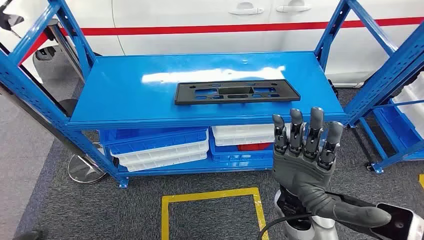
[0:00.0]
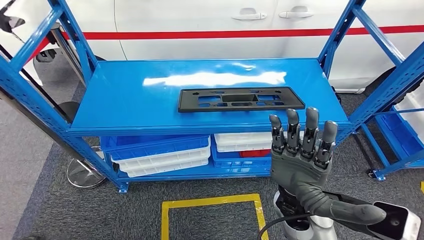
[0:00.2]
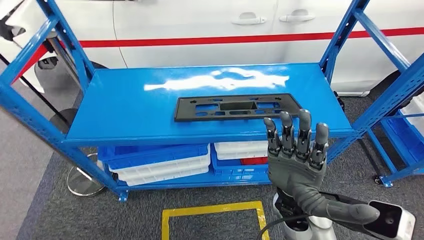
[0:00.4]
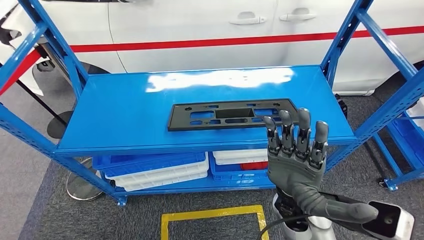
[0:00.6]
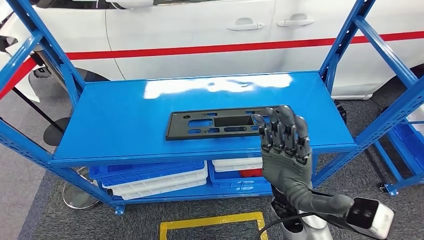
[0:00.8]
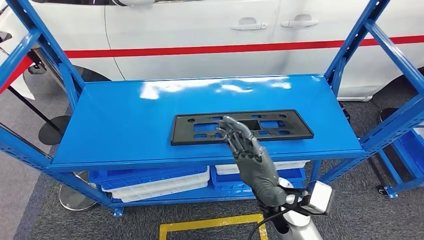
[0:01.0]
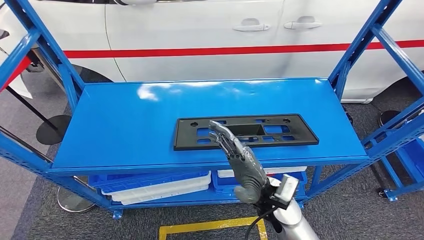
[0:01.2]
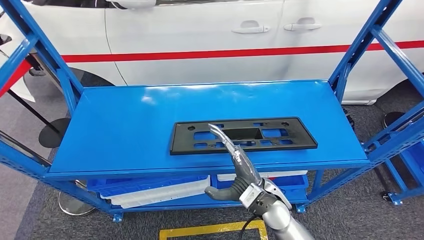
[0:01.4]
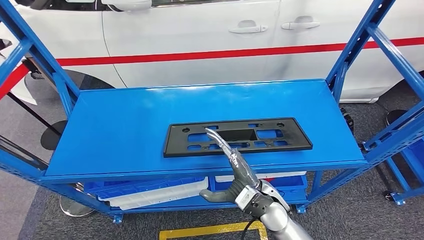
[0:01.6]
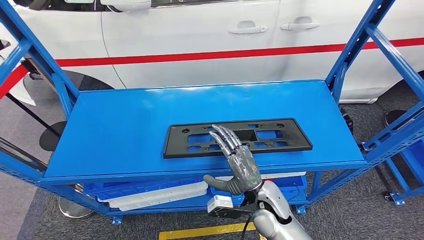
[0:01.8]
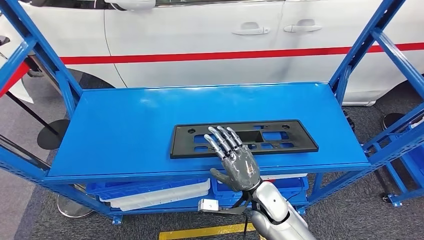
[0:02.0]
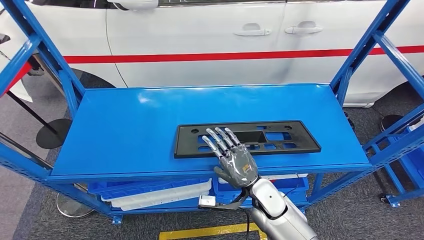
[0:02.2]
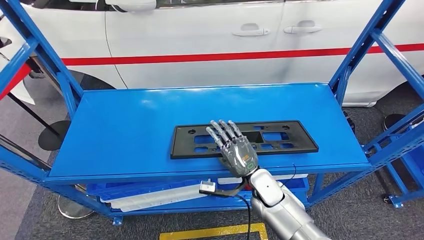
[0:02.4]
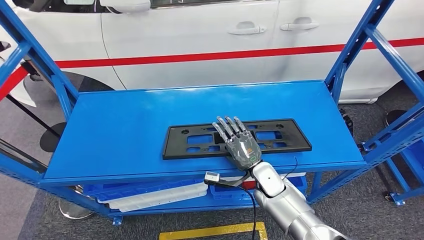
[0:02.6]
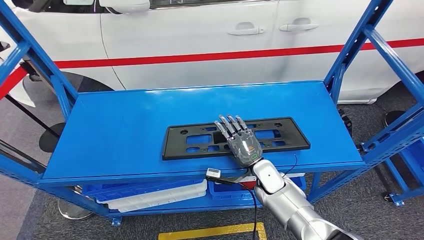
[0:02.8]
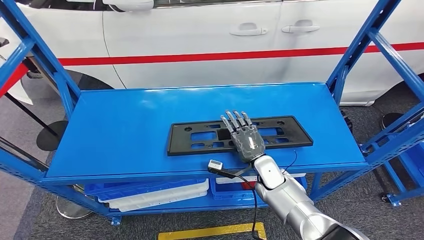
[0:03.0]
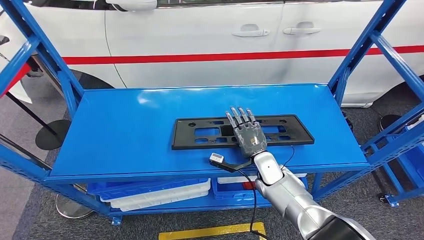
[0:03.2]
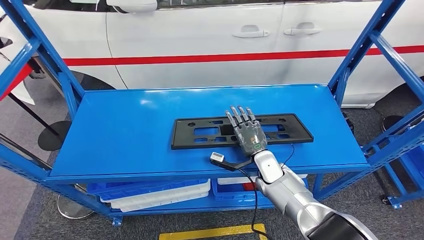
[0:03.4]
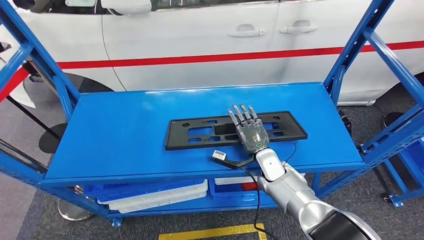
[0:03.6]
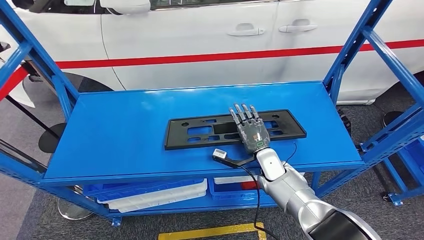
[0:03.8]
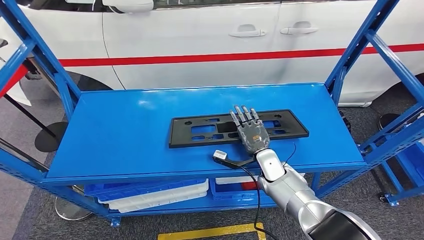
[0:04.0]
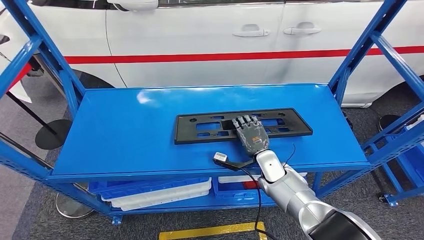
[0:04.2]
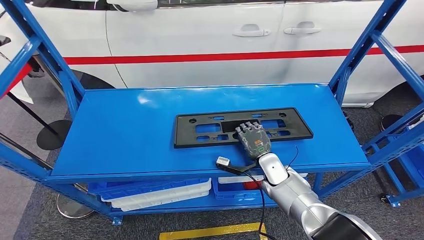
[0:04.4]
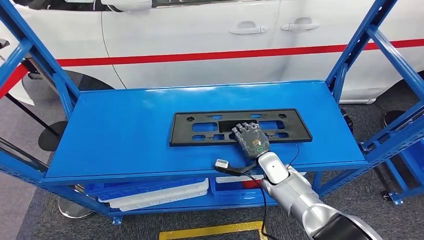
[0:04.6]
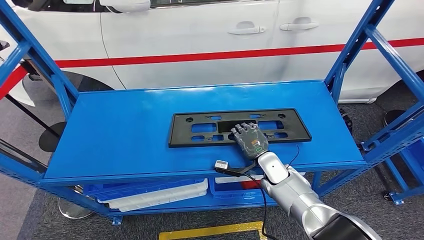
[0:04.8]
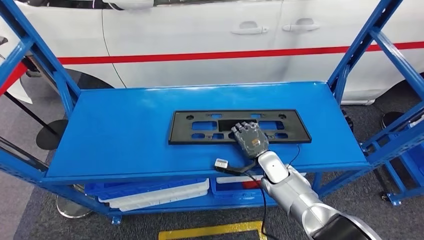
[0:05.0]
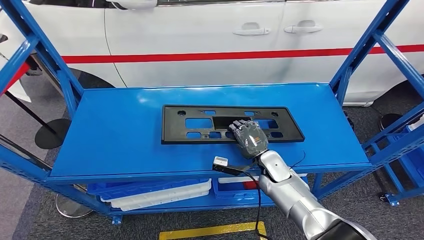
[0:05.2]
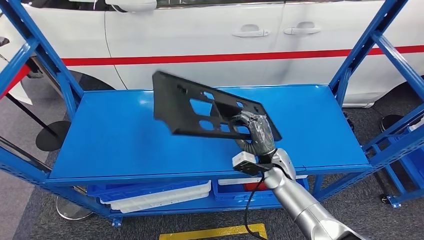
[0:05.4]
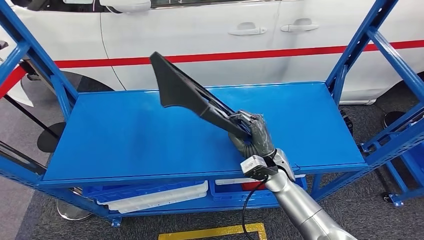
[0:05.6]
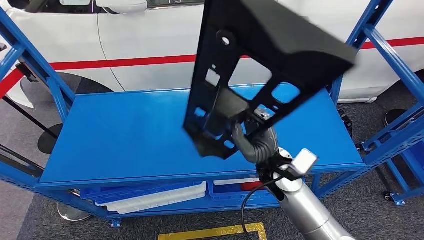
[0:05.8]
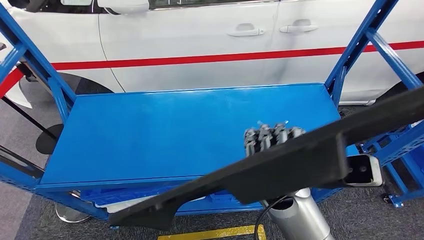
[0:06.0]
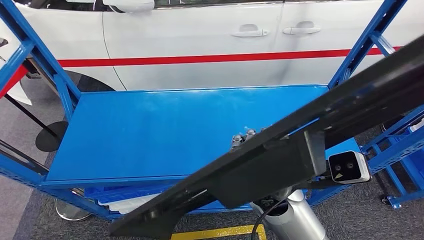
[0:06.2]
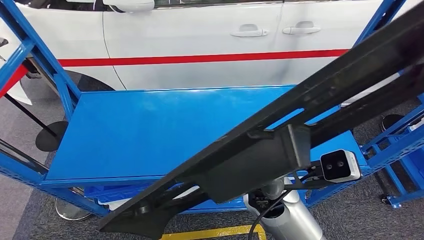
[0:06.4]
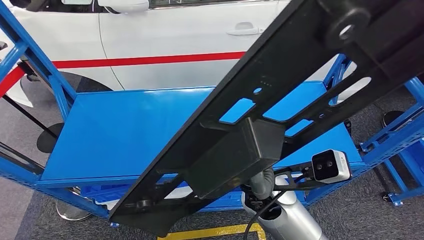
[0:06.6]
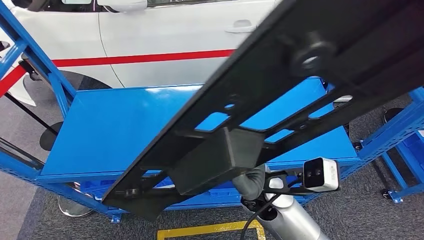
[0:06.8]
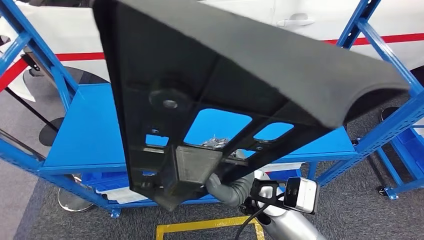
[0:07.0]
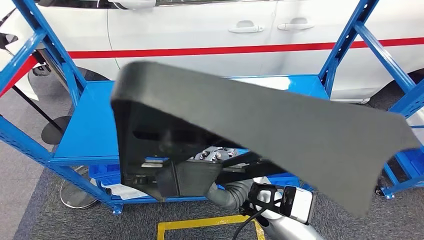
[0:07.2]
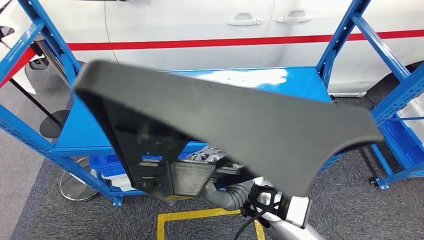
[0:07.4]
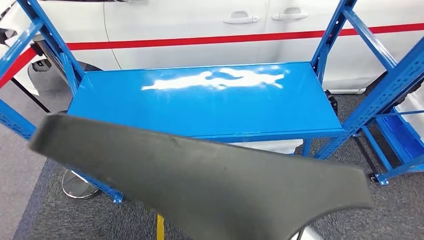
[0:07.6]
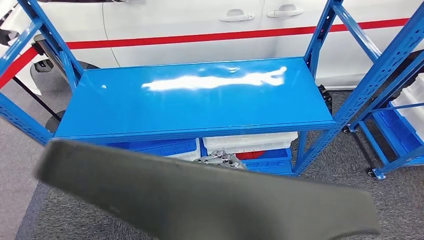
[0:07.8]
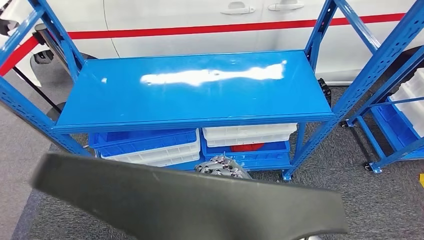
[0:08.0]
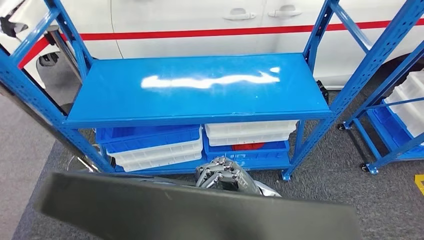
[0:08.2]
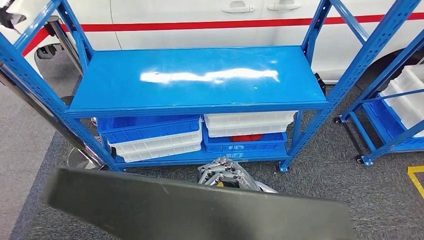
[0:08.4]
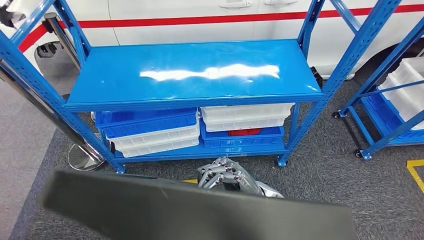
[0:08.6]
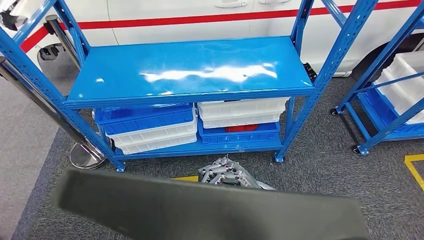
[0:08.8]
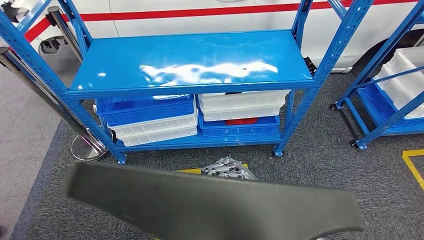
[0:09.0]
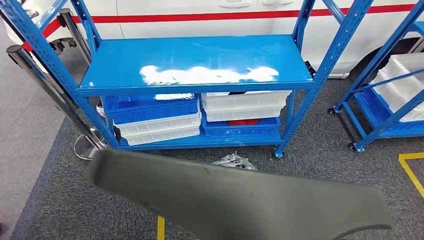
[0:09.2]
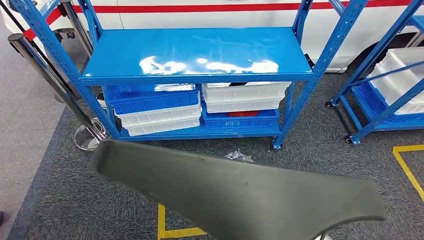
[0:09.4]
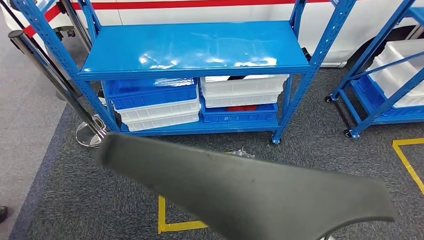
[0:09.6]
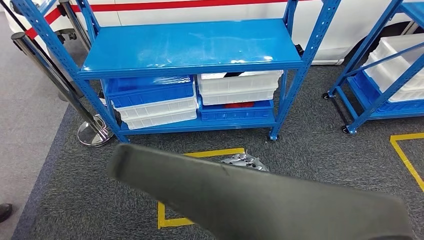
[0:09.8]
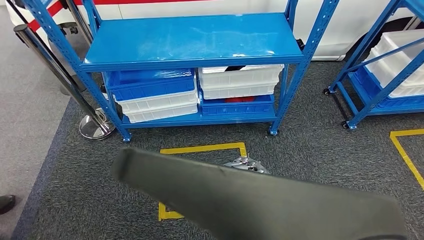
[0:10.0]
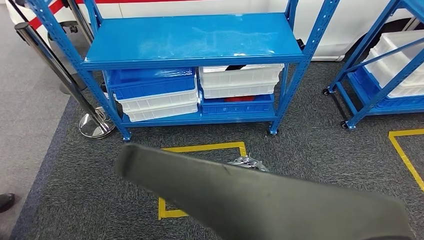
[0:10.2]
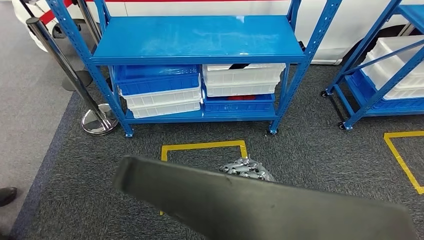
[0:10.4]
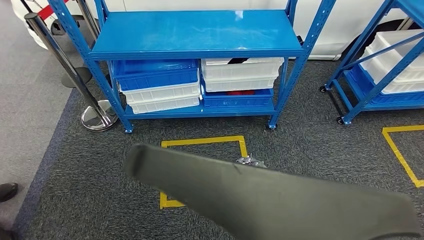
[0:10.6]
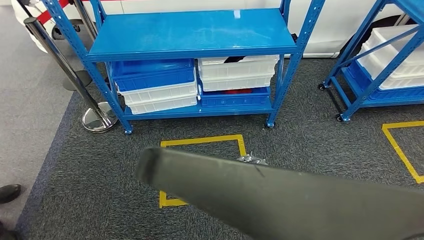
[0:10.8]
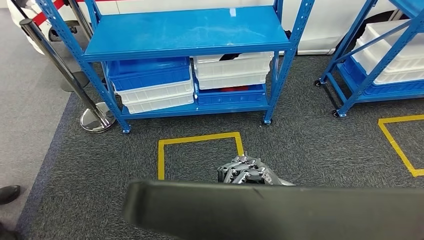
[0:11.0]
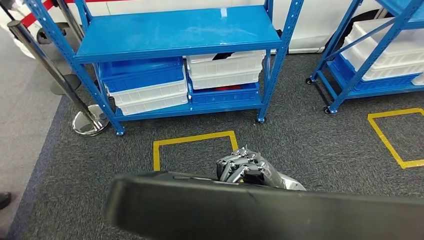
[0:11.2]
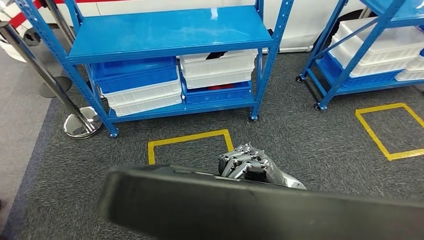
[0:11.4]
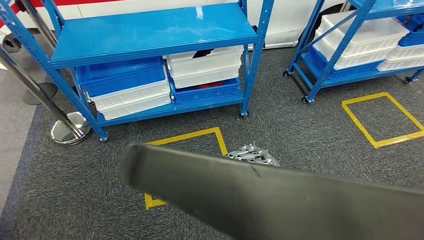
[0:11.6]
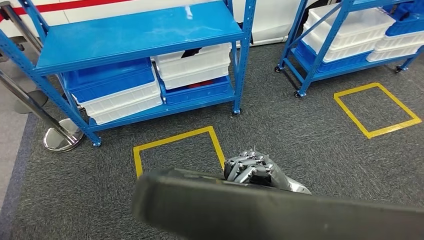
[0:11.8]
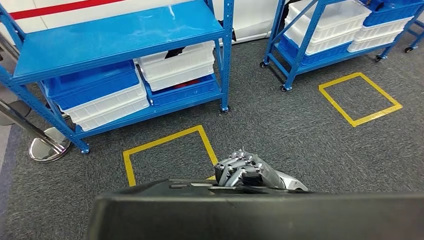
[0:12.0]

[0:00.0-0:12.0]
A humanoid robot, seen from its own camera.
Step, 0:00.0 to 0:05.2: Pick up the large material from the shelf.
0:03.0 to 0:04.4: There are only small adjustments of the hands.

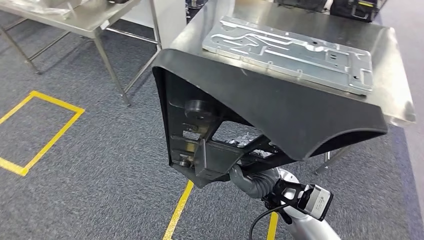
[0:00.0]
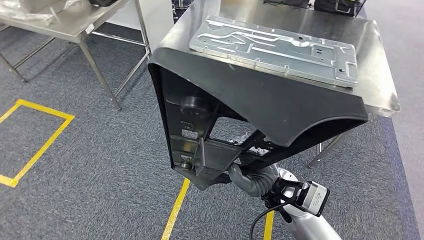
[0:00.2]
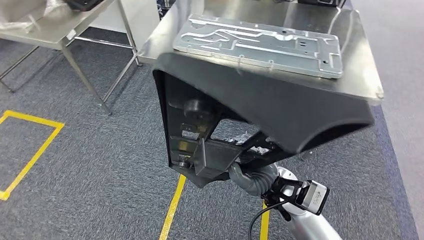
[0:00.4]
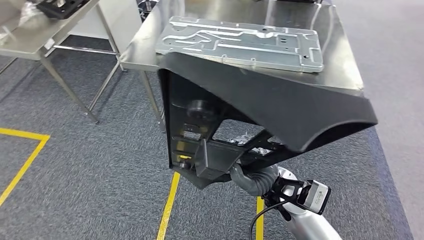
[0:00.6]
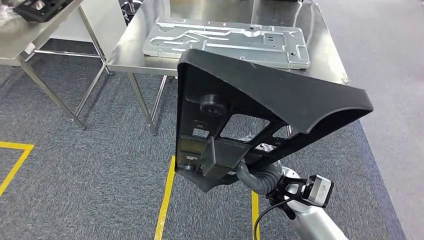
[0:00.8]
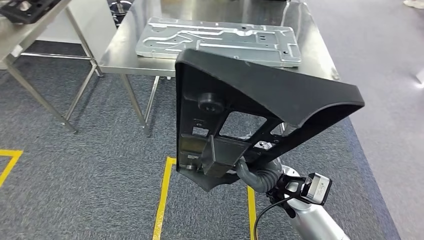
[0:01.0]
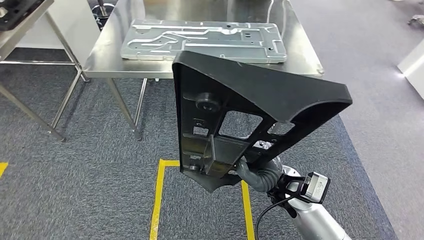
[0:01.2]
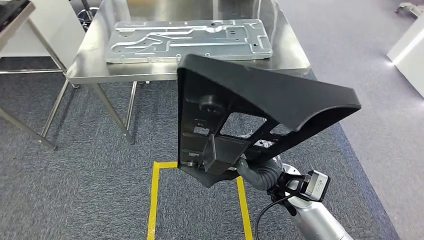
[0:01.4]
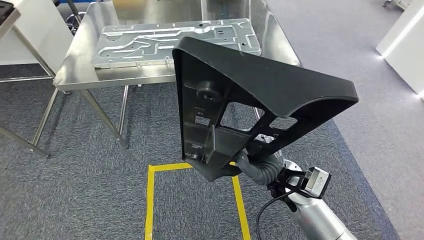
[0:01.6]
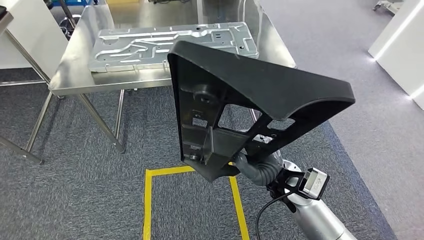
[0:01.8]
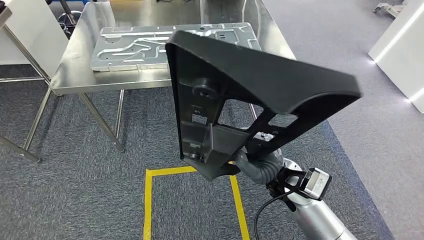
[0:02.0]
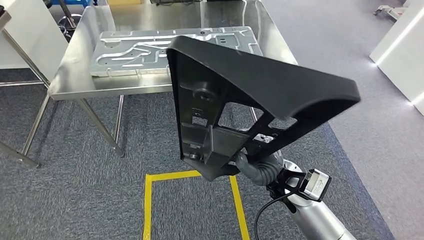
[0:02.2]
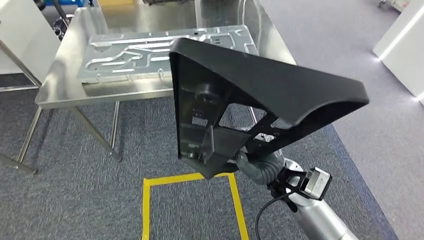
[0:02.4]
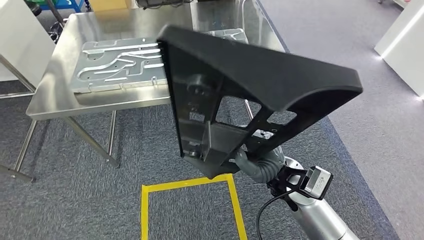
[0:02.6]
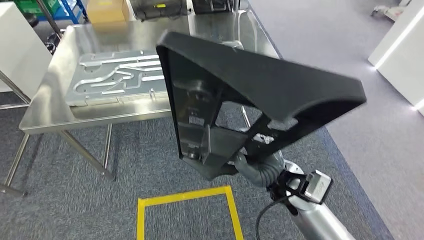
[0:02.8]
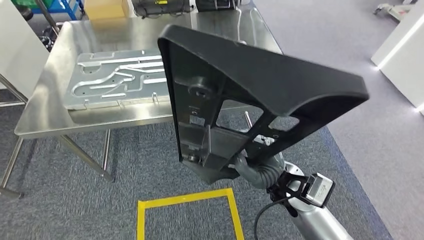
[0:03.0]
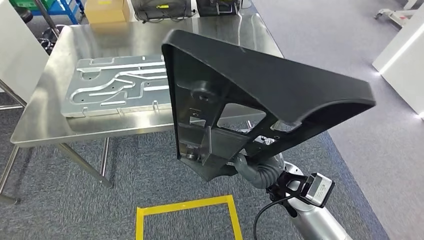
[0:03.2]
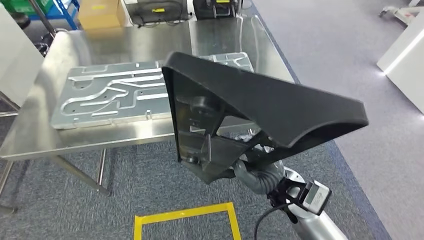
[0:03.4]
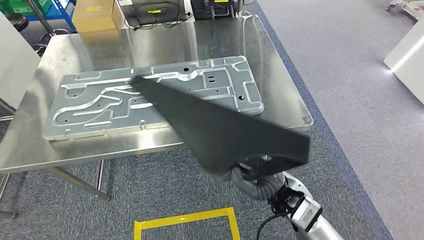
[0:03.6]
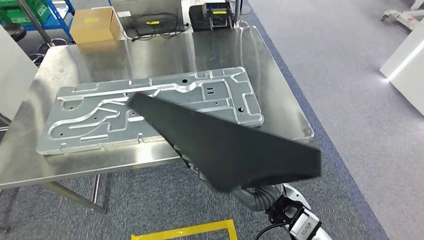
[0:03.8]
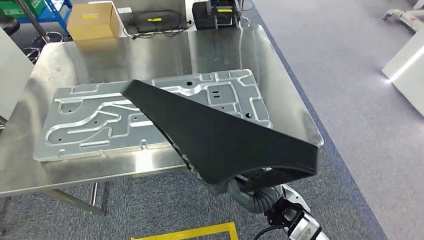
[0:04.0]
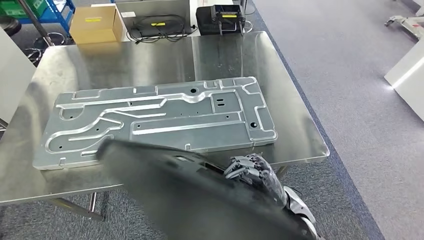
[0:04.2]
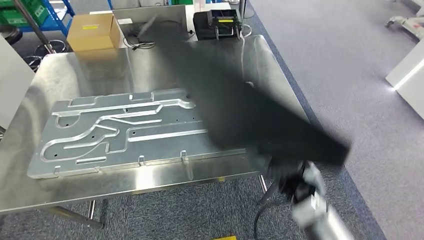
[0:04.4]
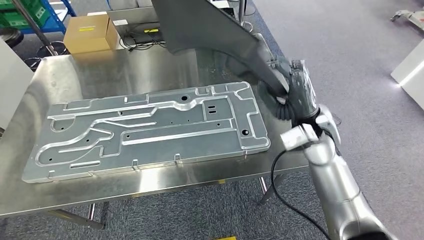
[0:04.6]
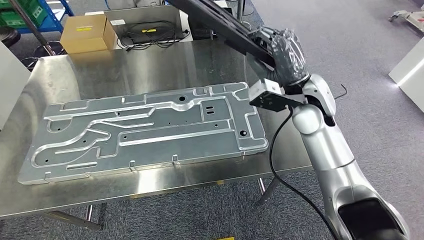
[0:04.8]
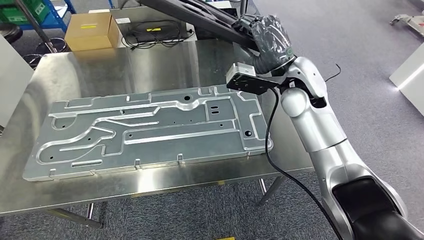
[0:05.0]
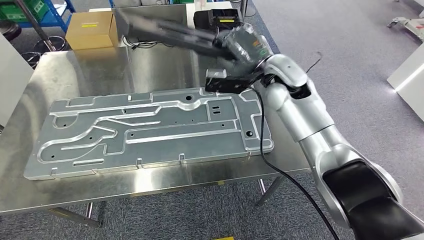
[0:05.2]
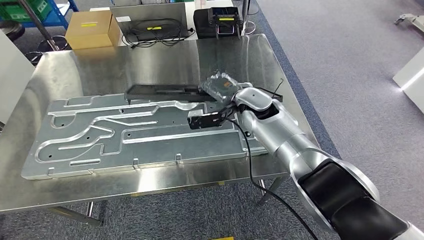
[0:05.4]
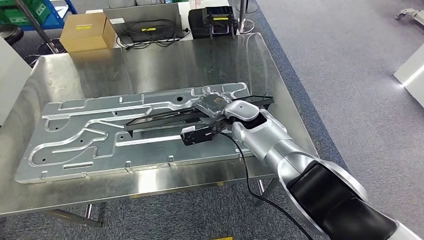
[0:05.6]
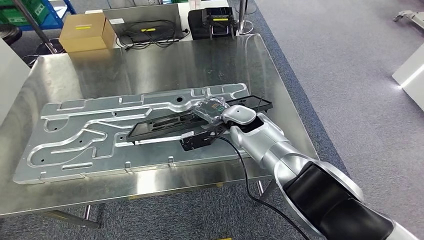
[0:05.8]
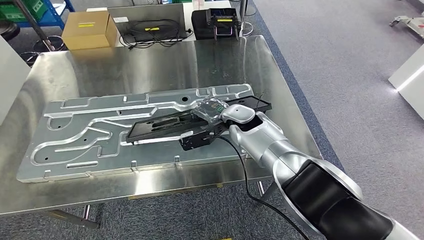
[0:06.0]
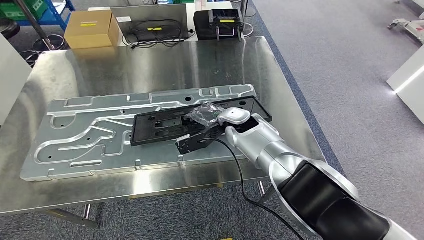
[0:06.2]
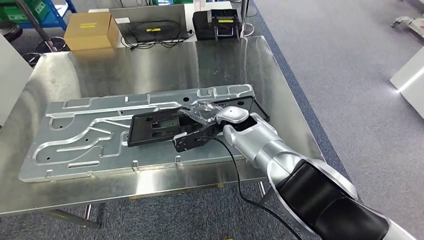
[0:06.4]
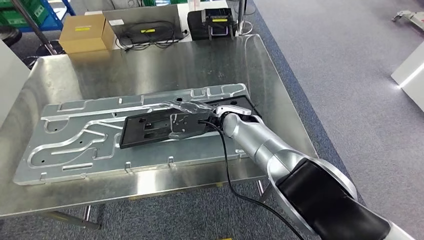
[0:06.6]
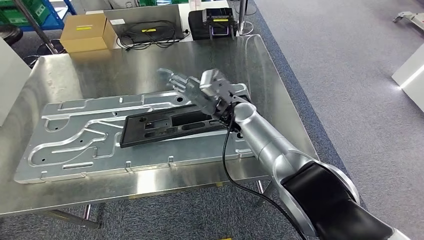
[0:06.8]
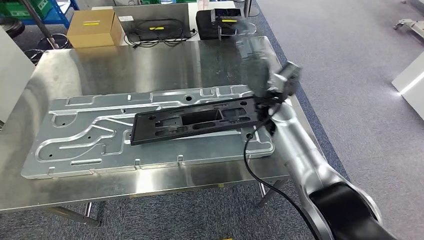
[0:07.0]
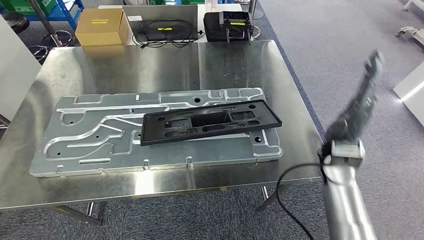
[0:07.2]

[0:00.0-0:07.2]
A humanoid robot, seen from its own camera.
Step, 0:00.0 to 0:04.2: Move the large material to the workbench.
